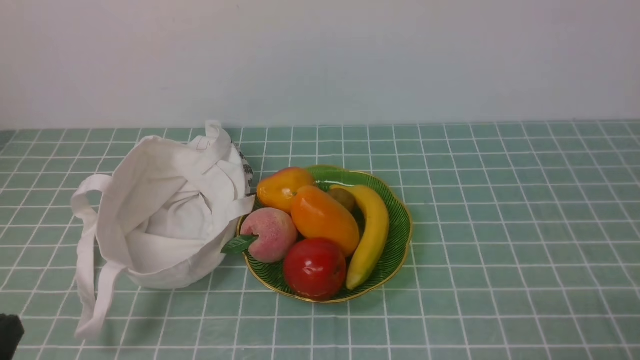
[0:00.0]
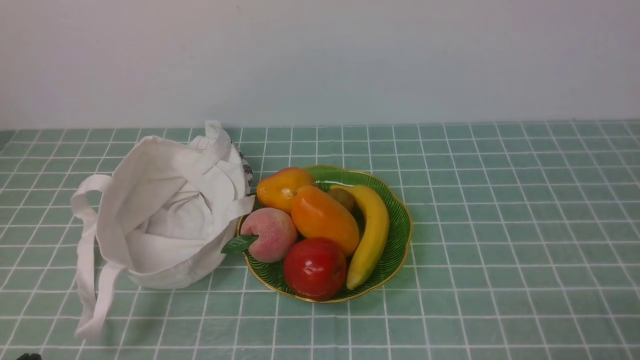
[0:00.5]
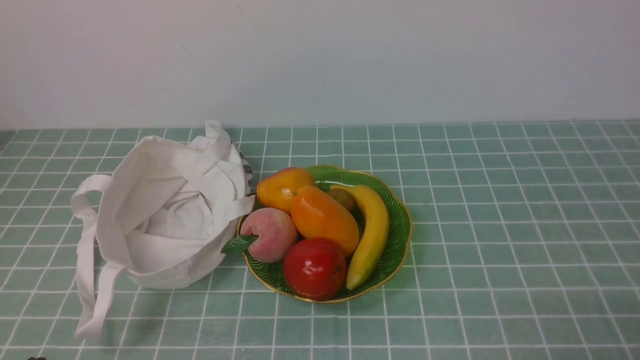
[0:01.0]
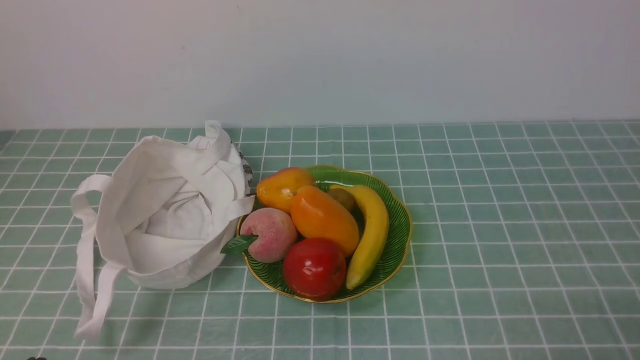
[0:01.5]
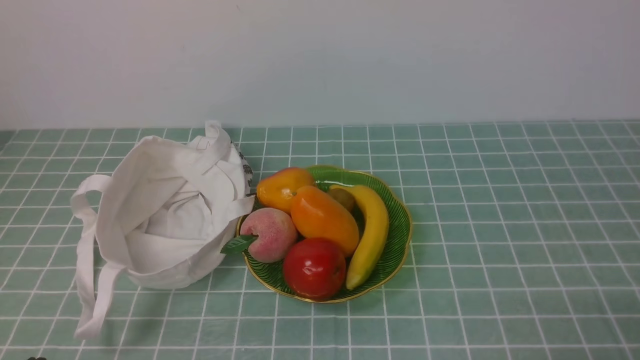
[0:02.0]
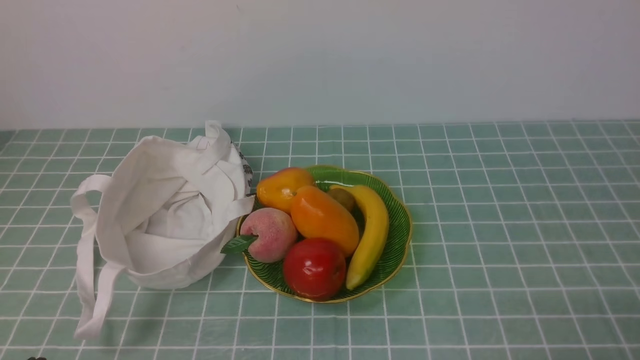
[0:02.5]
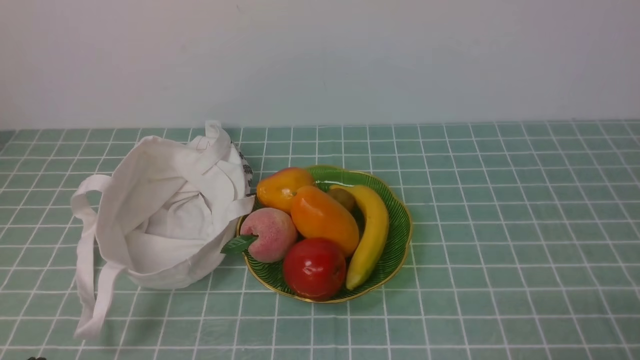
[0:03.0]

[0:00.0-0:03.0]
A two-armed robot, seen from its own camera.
0:01.5 to 0:03.0: Neither gripper changes place.
